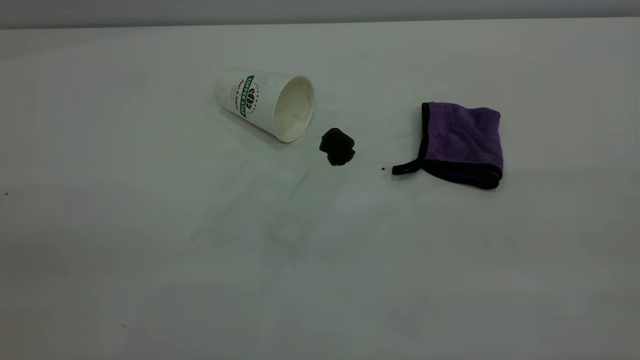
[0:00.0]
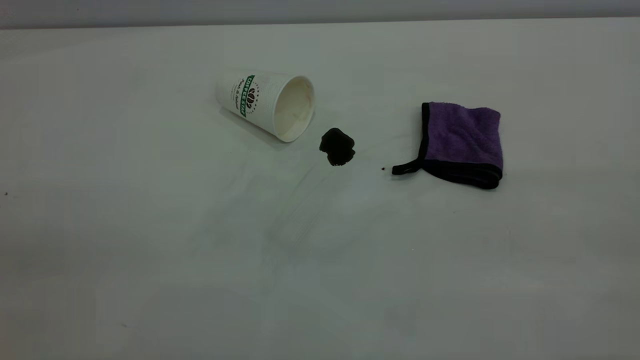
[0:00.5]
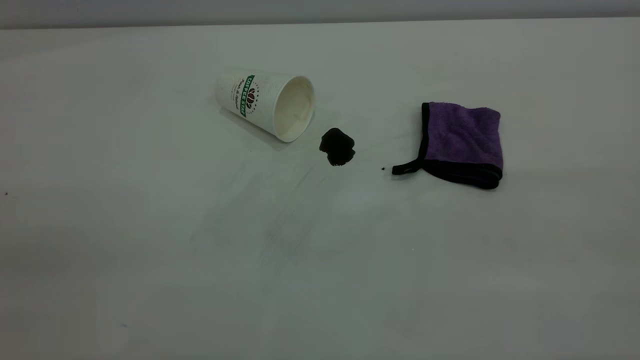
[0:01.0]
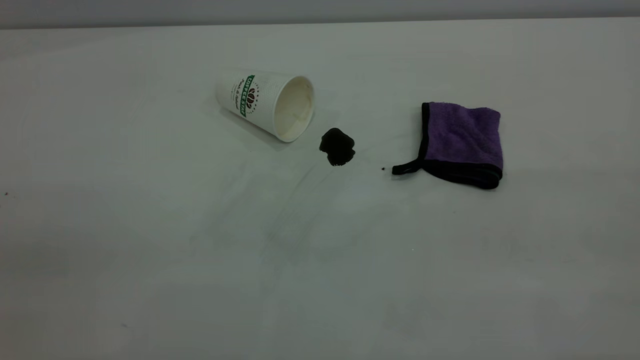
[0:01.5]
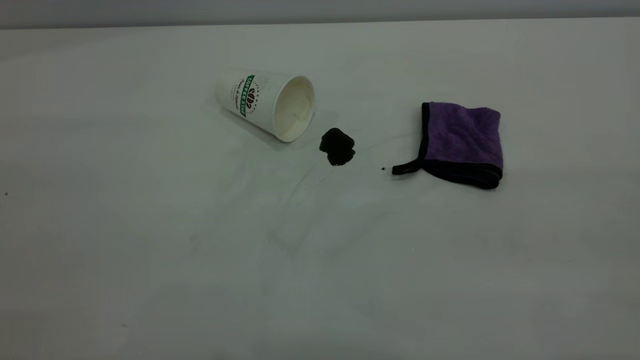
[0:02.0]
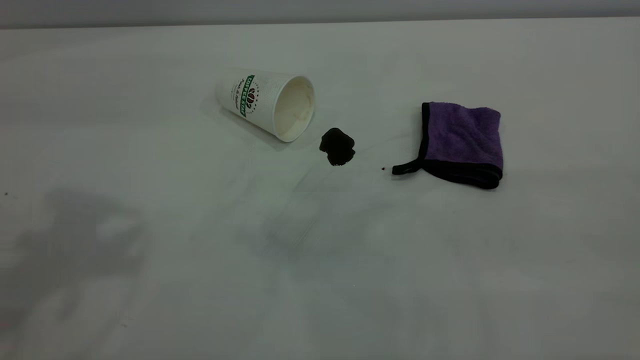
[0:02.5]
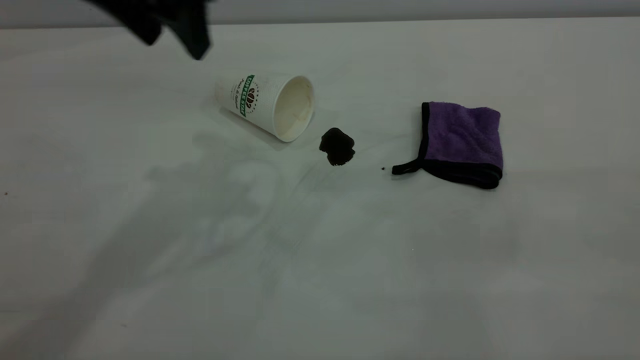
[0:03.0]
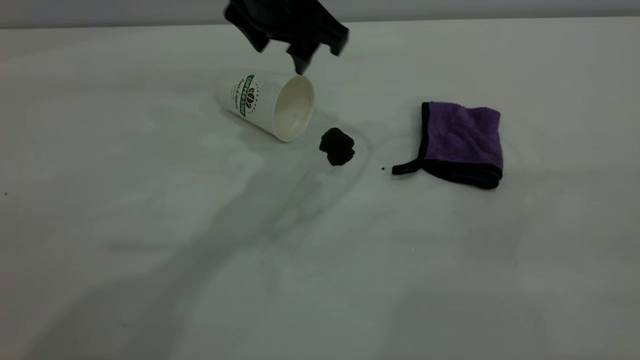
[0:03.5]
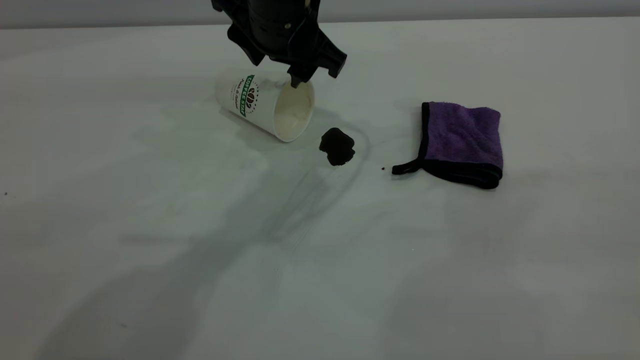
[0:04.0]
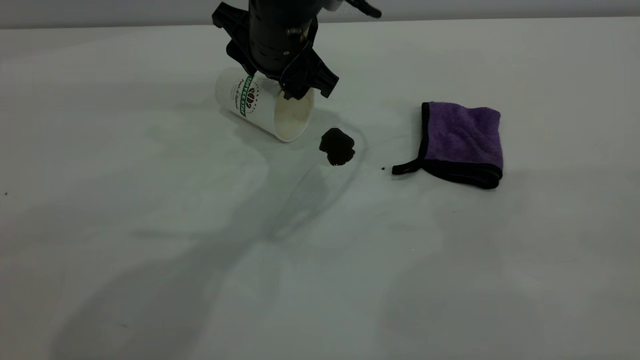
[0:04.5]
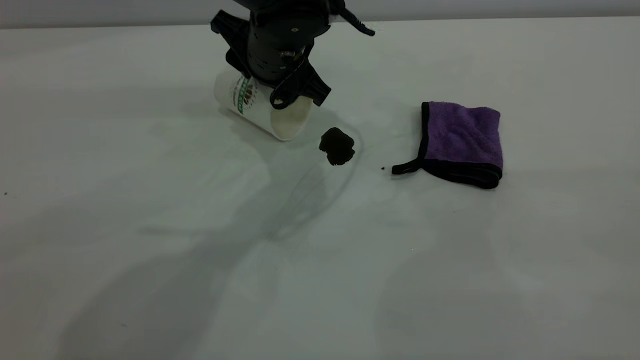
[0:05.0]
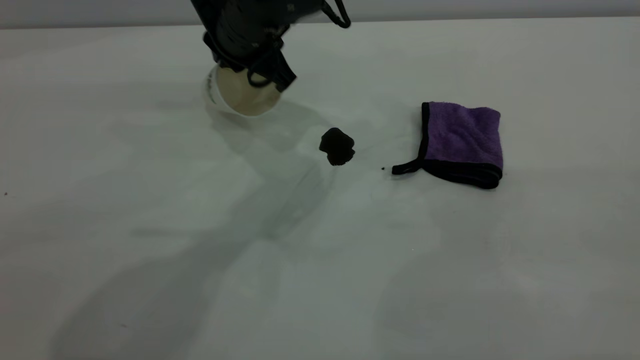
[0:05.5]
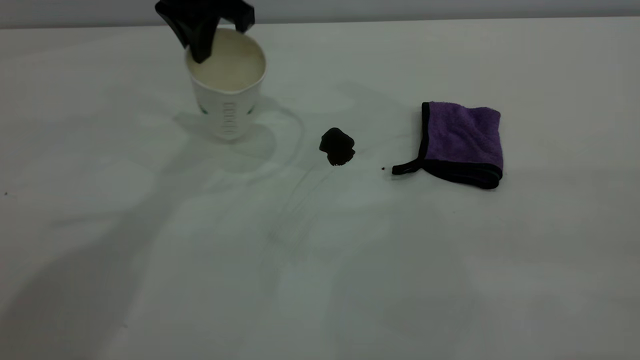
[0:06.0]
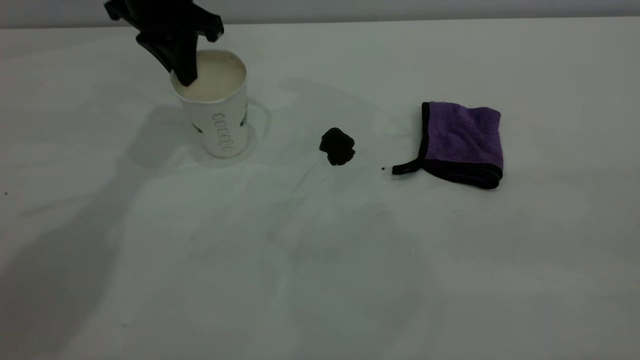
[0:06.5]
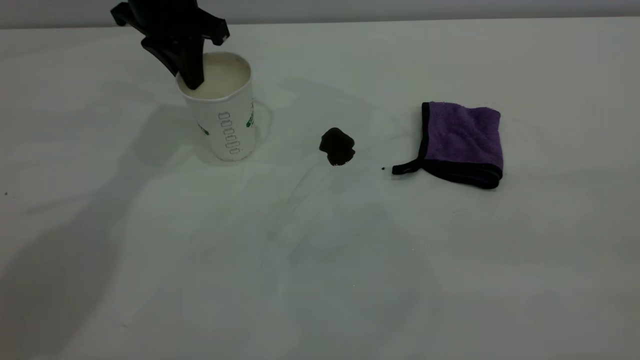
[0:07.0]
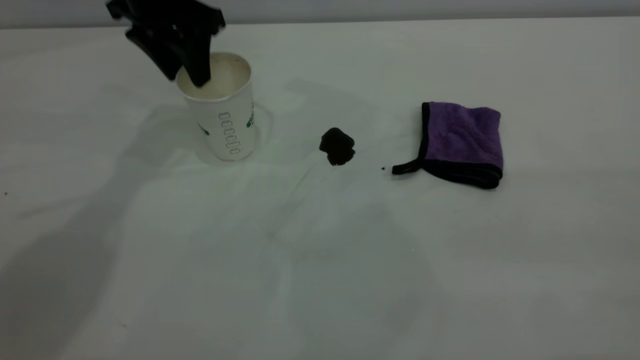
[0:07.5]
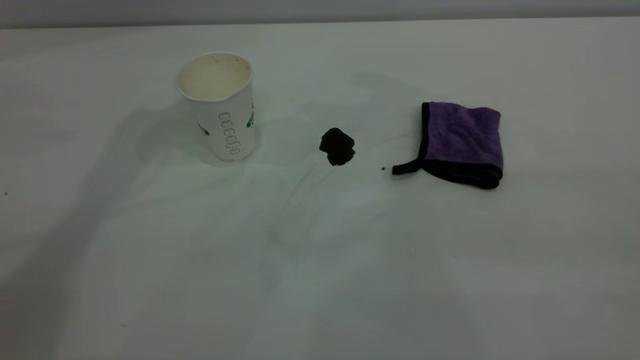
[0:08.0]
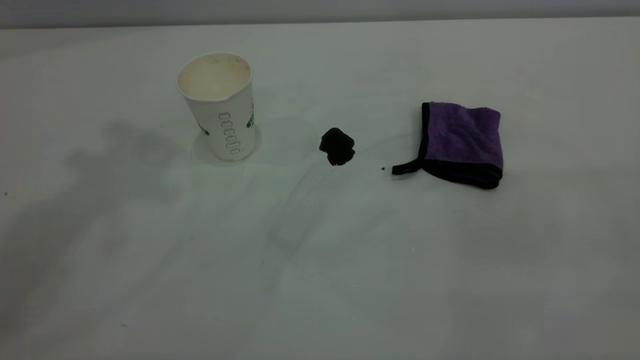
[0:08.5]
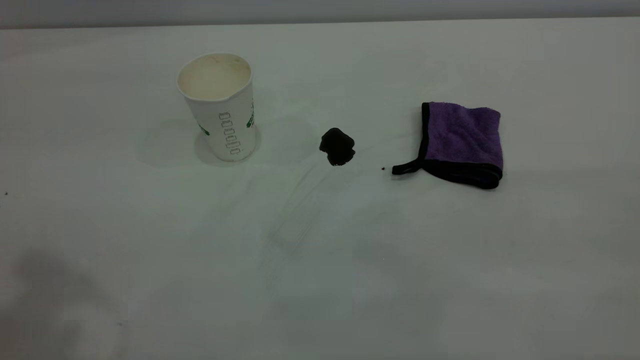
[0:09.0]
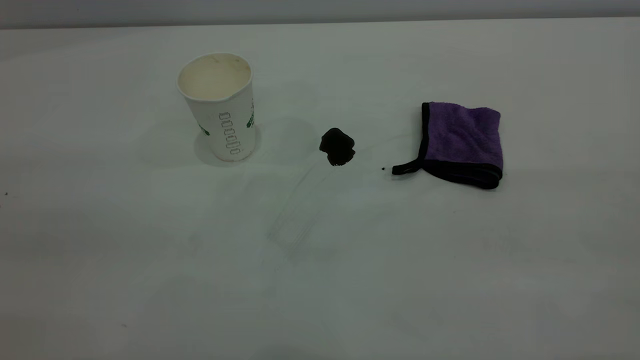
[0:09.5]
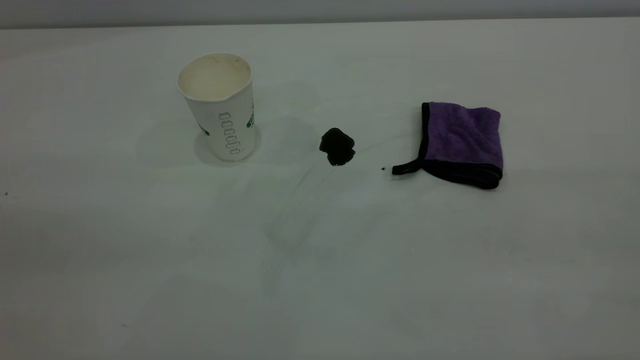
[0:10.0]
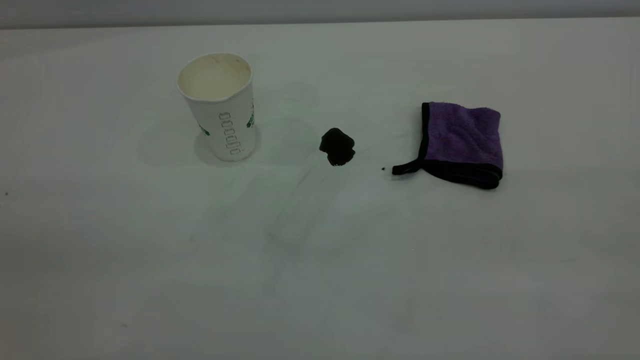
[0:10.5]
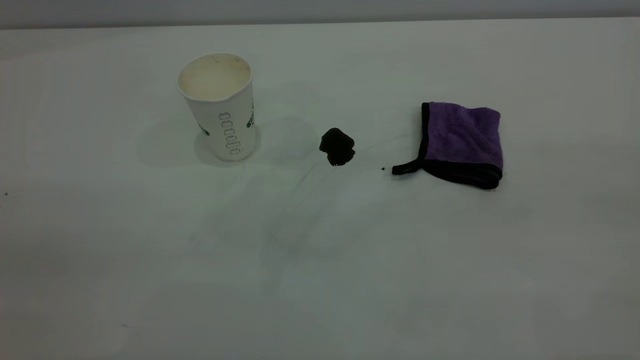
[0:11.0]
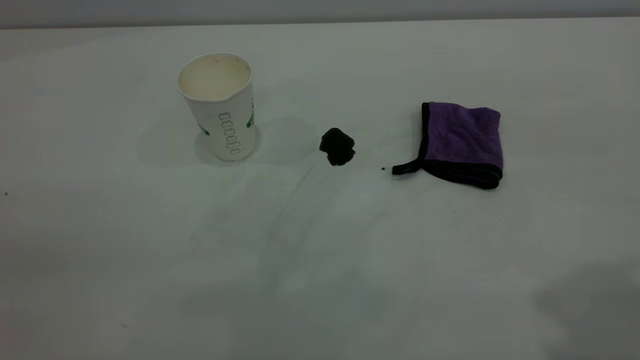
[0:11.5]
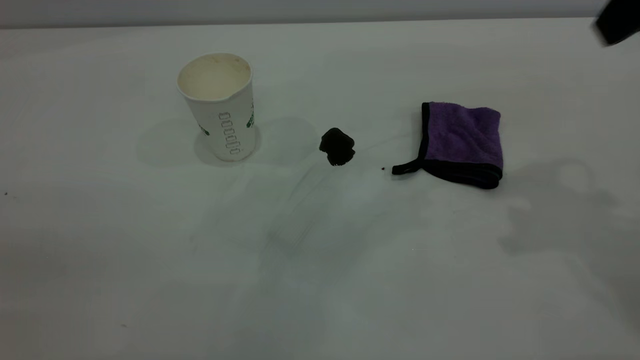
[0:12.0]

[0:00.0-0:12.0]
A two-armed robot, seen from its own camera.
Task of the whole recording: the left gripper pick up the fallen cup and place it upright, the right gripper grasp the purple rag and wipe the coffee stain on the table, the right gripper put the purple rag back in its original position.
Step, 0:00.0 to 0:07.5: Stand the paper cup upright.
0:02.0 to 0:04.0: The left gripper is displaced forward, to the right and downward by roughly 50 cm.
0:04.0 to 0:06.0: The left gripper moves to the left and upward, approximately 10 cm, and closes.
0:06.0 to 0:08.0: The left gripper travels upward by approximately 15 cm, and opens its fingers.
0:10.0 to 0:12.0: The right gripper shifts some 30 cm forward.

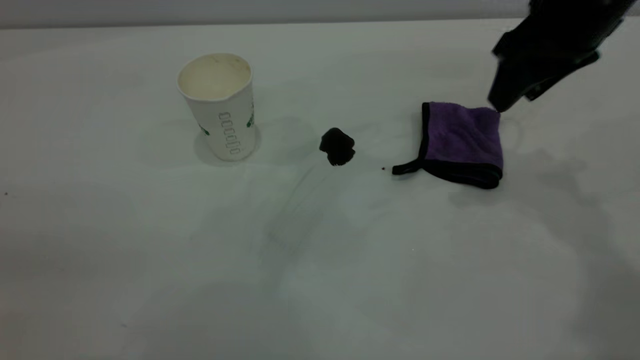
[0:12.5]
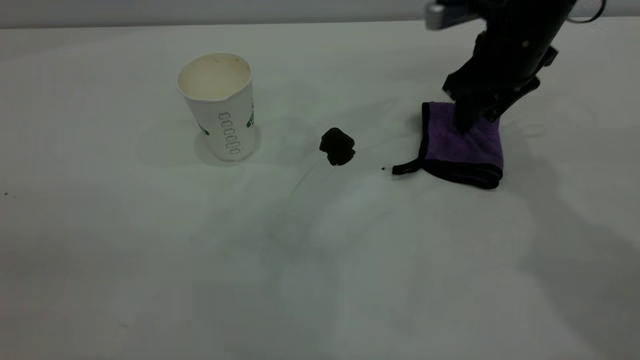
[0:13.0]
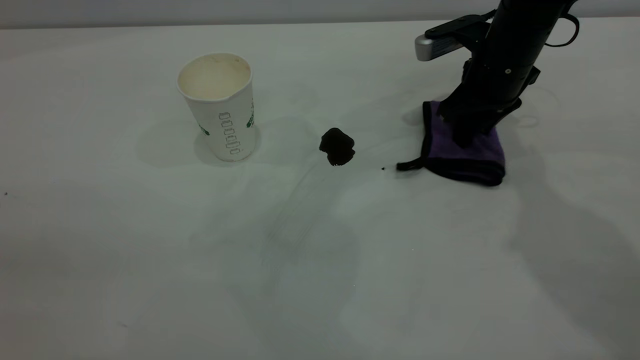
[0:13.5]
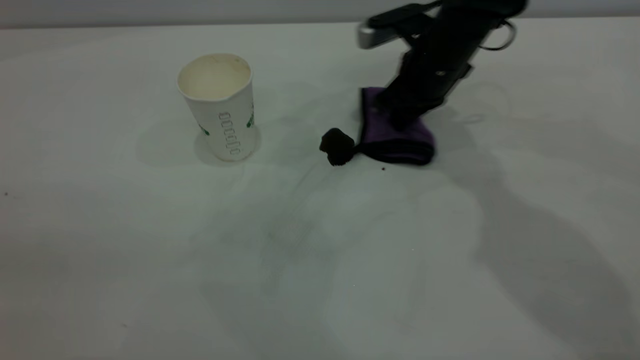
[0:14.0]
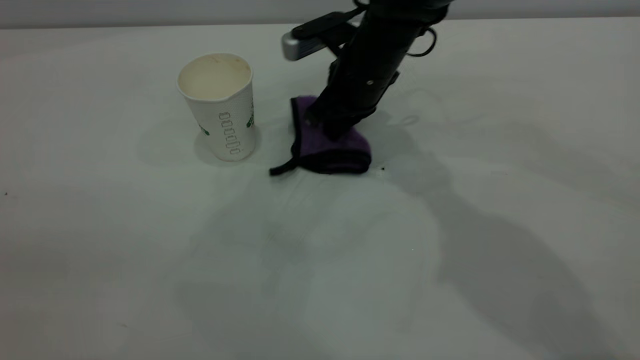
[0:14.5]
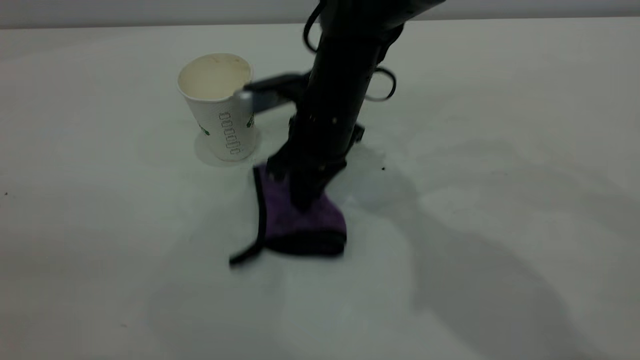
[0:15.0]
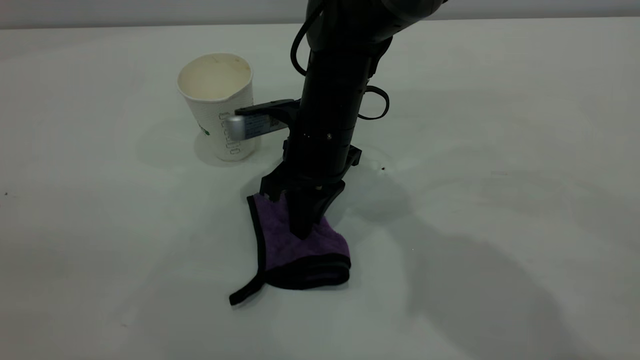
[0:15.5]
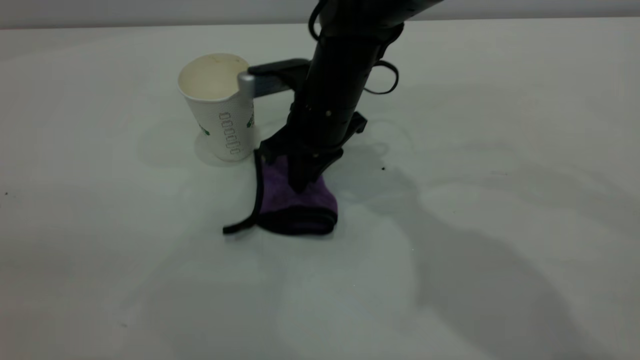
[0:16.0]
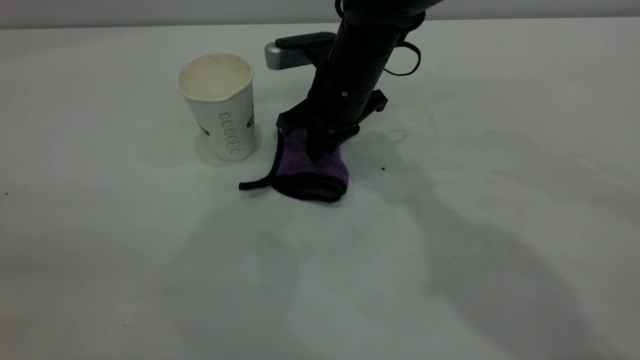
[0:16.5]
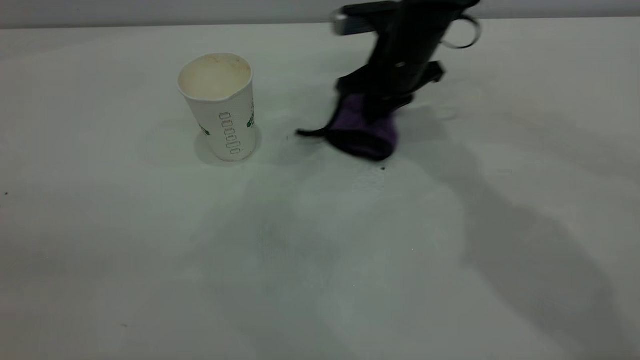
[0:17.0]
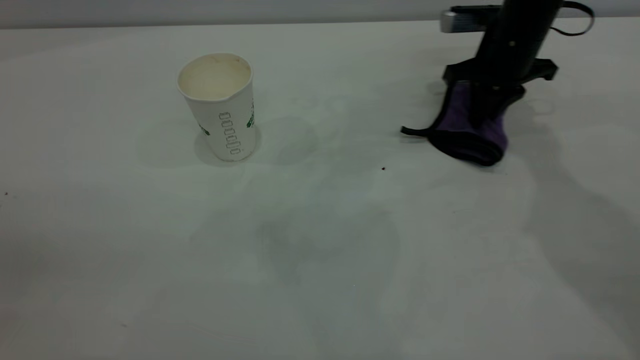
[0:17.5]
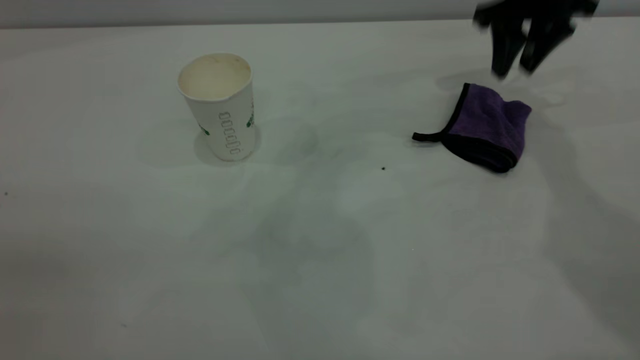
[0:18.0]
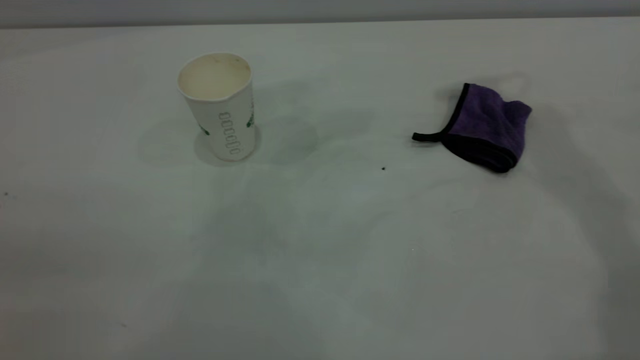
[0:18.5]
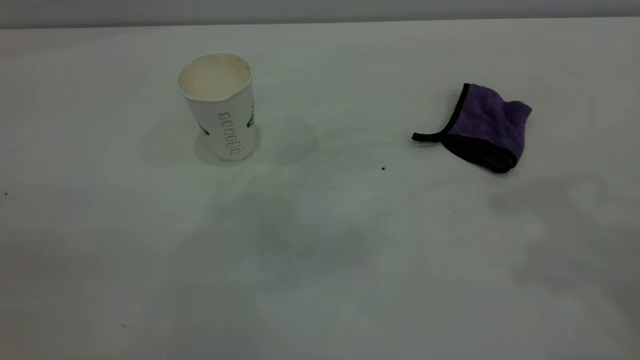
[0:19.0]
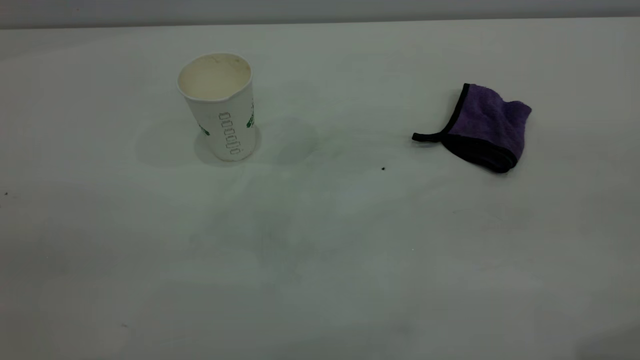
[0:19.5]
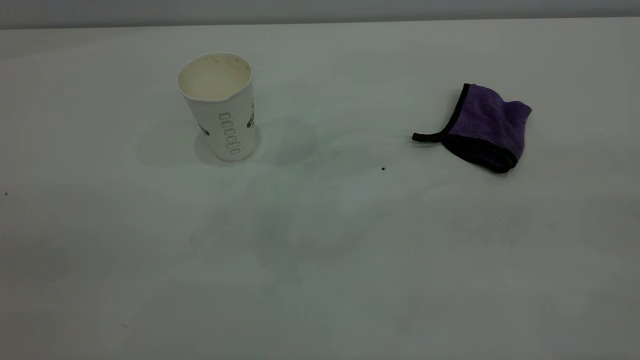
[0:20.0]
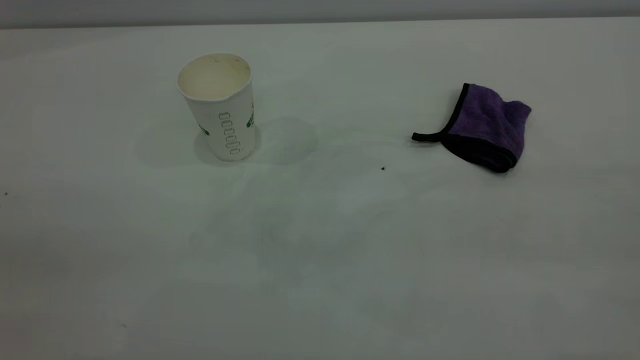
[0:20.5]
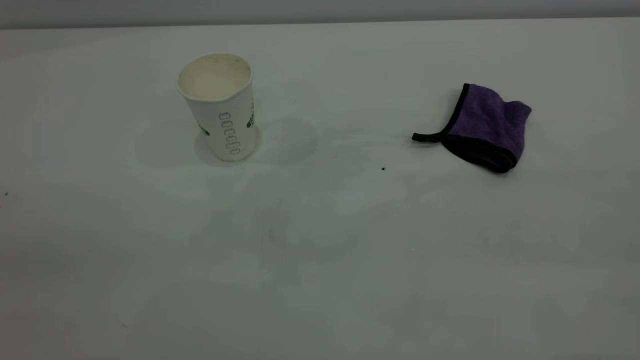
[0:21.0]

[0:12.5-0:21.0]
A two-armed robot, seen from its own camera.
Task of the whole recording: the left gripper pick up the fallen cup and place it upright, the right gripper grasp the purple rag and wipe the coffee stain on the table, the right gripper put the purple rag back in its original position.
Step, 0:12.5 to 0:17.5: Wipe the stains off the table with a rag.
0:12.5 to 0:14.5: The right gripper shifts roughly 20 cm to the left and downward, and closes its fingers.
0:16.5 to 0:19.0: The right gripper goes about 40 cm upward, to the right and backward, and opens its fingers.
